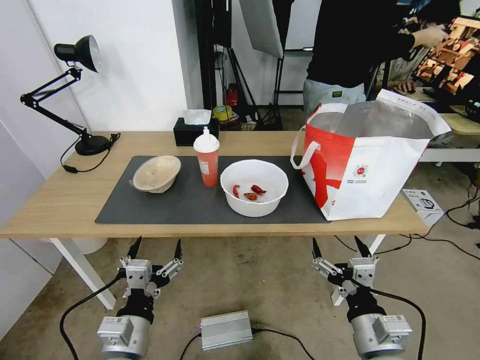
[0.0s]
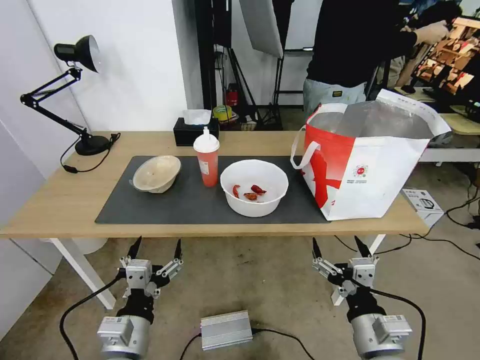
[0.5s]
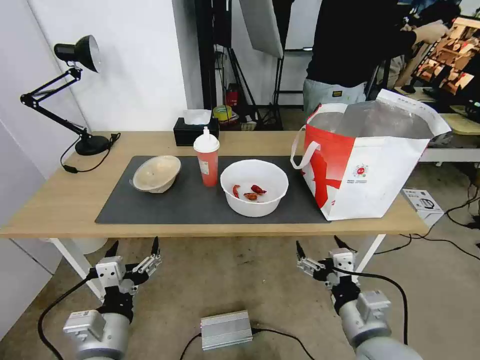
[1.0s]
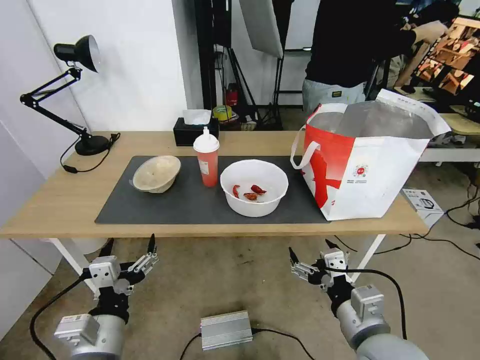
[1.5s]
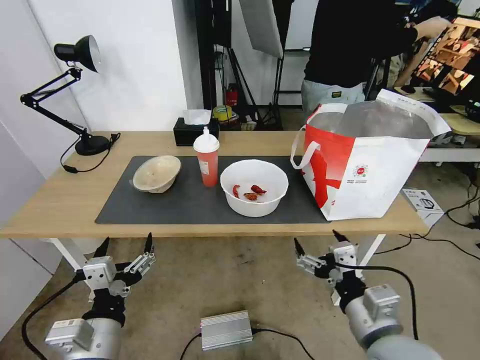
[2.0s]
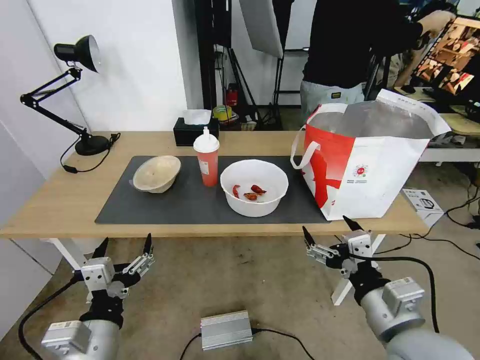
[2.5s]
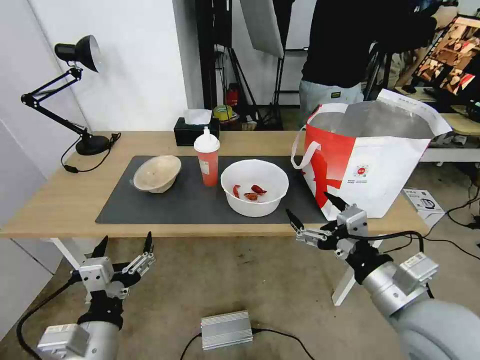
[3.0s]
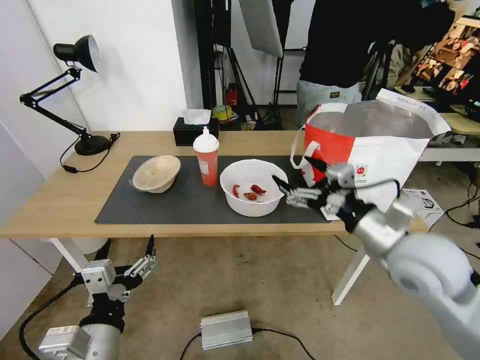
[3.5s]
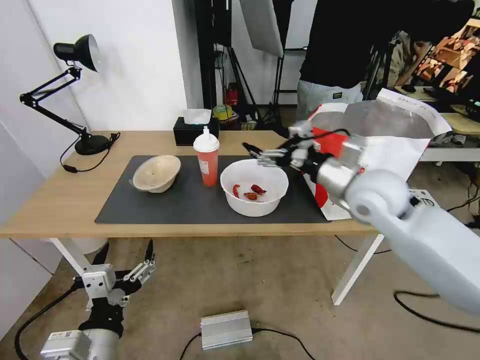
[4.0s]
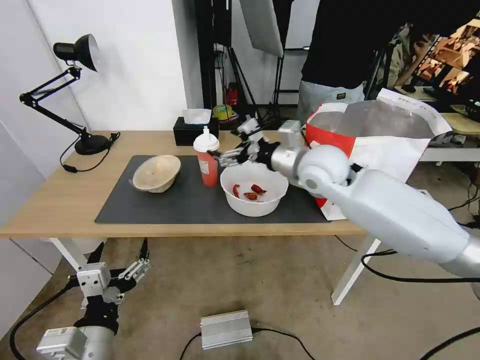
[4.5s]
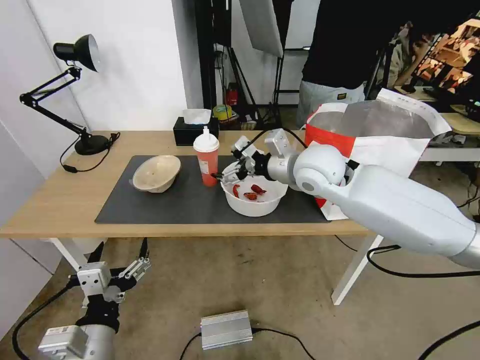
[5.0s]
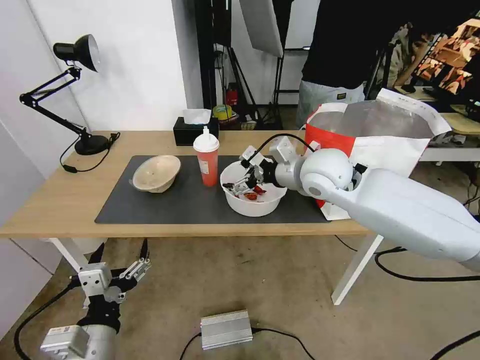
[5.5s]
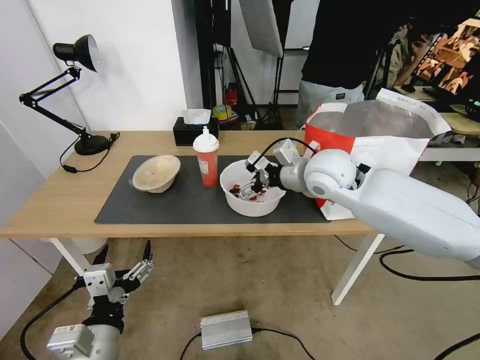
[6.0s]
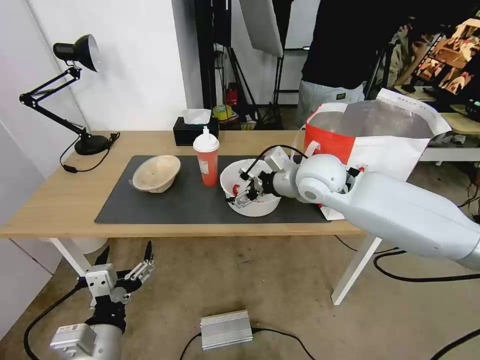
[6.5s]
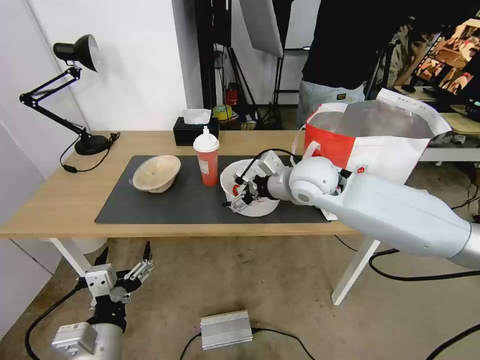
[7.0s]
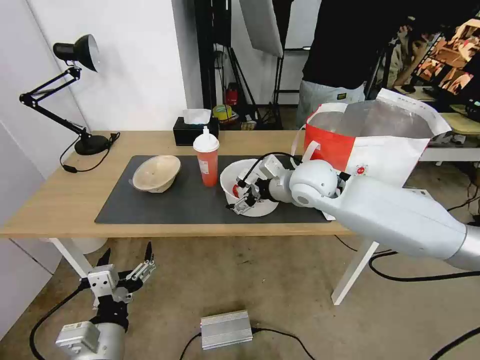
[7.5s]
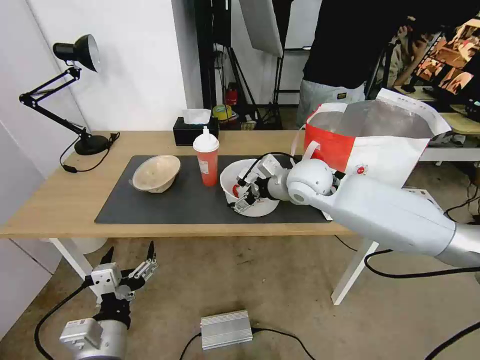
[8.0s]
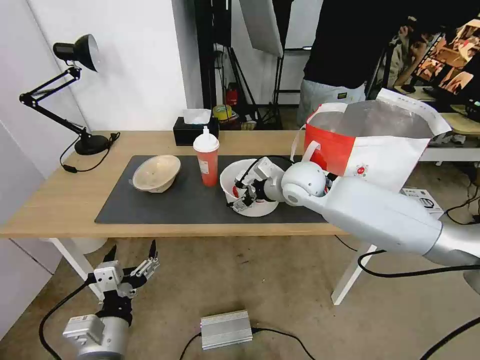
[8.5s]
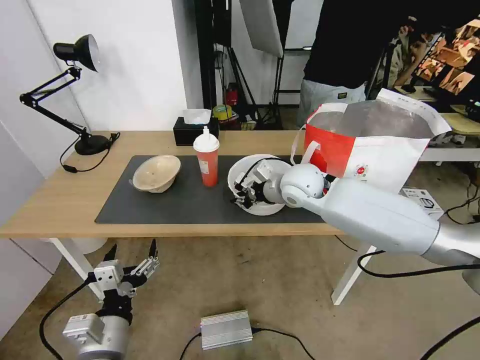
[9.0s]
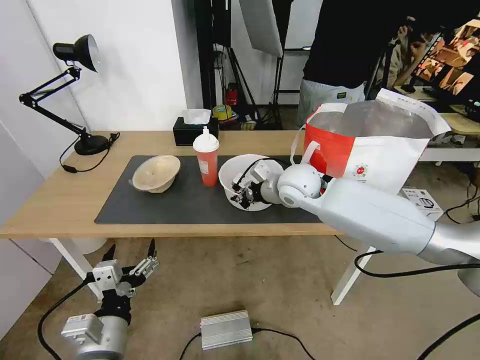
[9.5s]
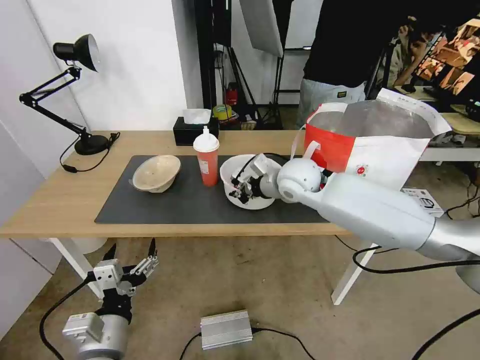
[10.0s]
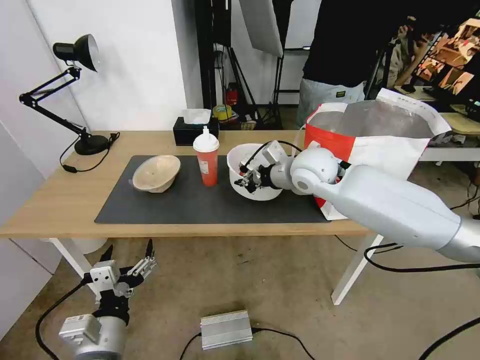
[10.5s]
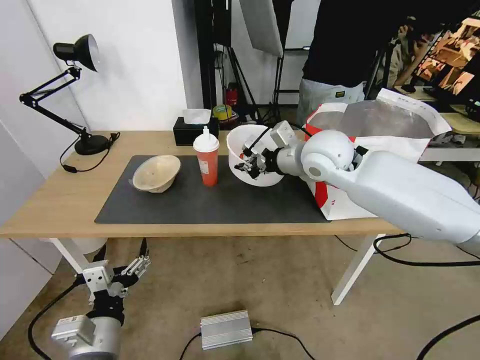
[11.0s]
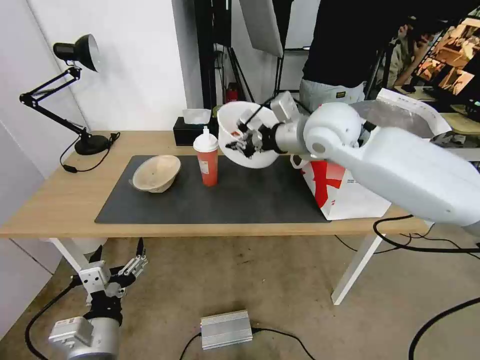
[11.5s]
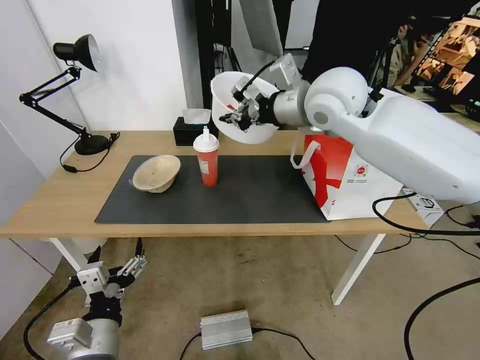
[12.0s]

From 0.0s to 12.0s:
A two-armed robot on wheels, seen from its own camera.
Task of the whole recording: Pick up the trash from the table and place it into the takeout bag.
From 2.0s to 4.0s: The right gripper travels forward and upward by roughly 25 cm.
From 4.0s to 6.0s: The right gripper travels to the left and forward by roughly 10 cm.
From 6.0s to 8.0s: The right gripper ends up about 5 cm from where it was.
From 8.0s to 10.0s: The right gripper closes.
From 10.0s to 12.0s: The right gripper shifts approximately 20 cm upward.

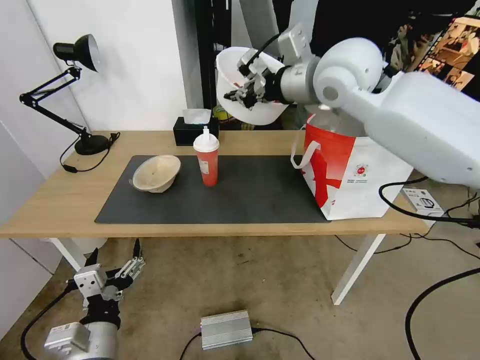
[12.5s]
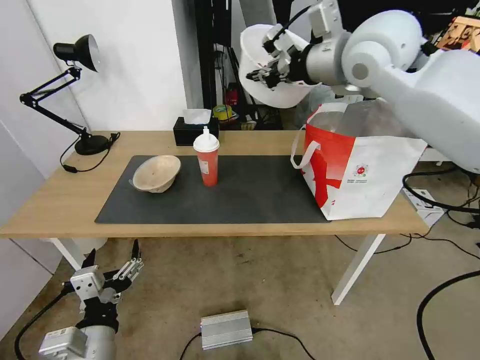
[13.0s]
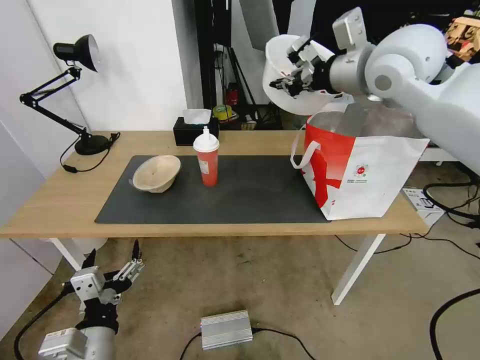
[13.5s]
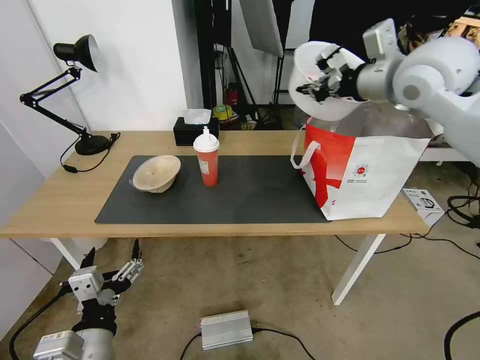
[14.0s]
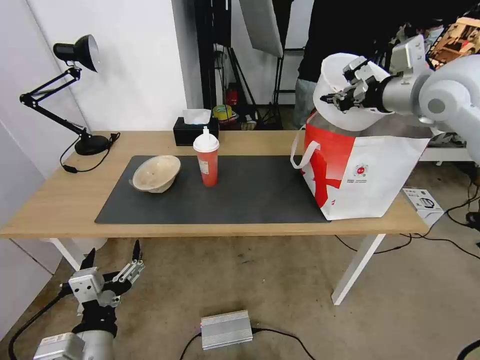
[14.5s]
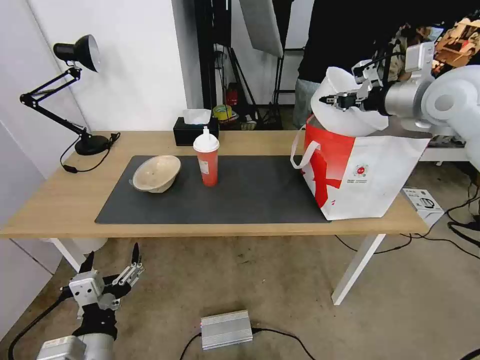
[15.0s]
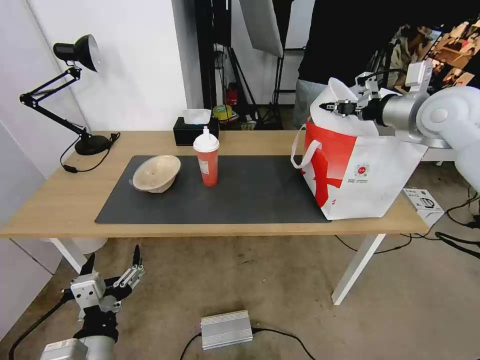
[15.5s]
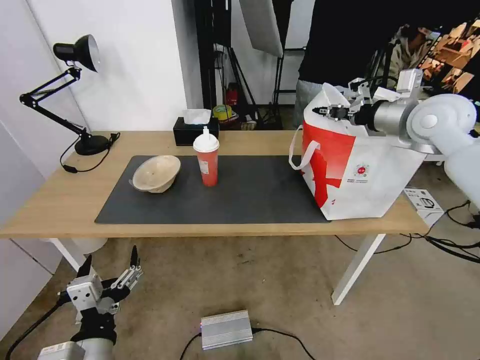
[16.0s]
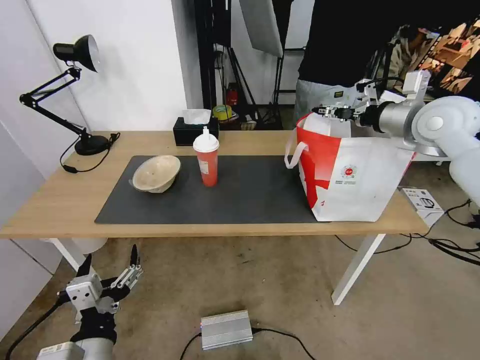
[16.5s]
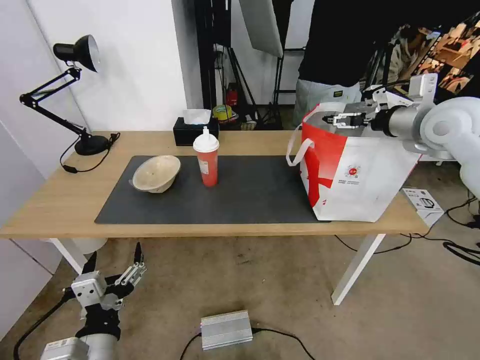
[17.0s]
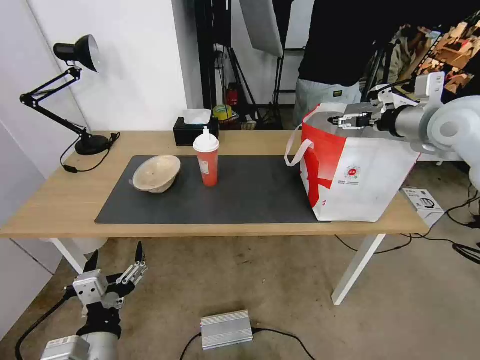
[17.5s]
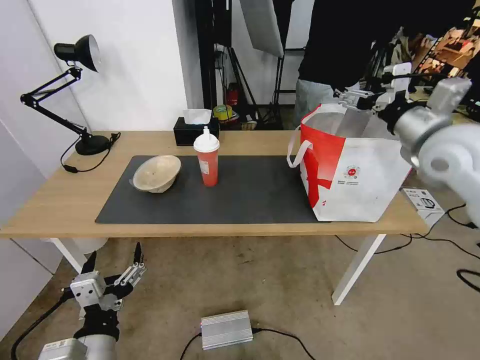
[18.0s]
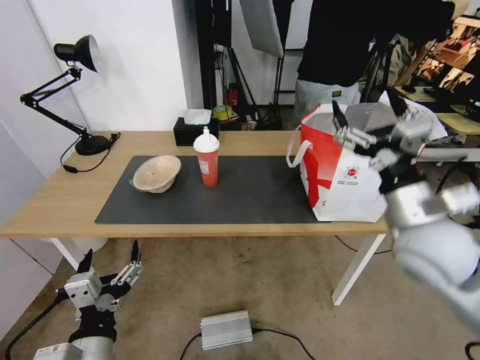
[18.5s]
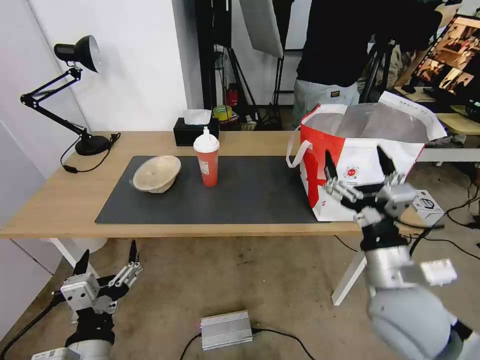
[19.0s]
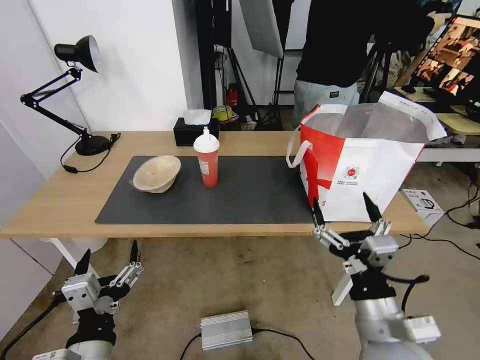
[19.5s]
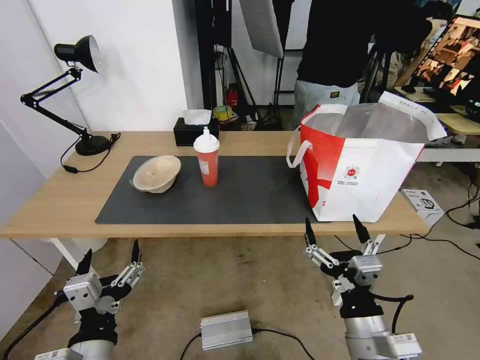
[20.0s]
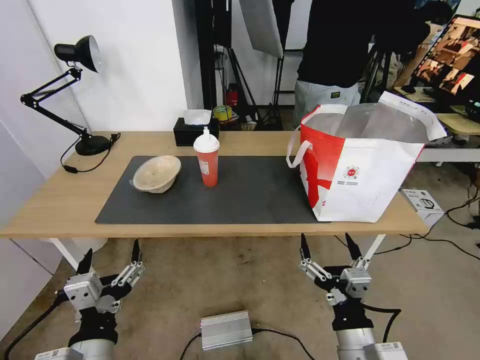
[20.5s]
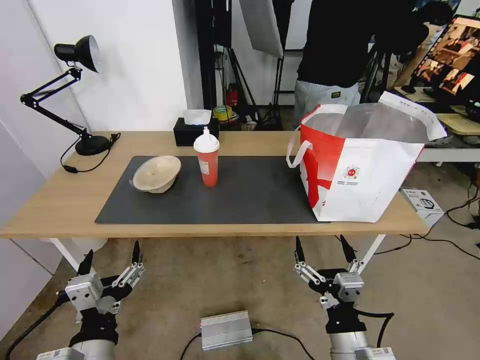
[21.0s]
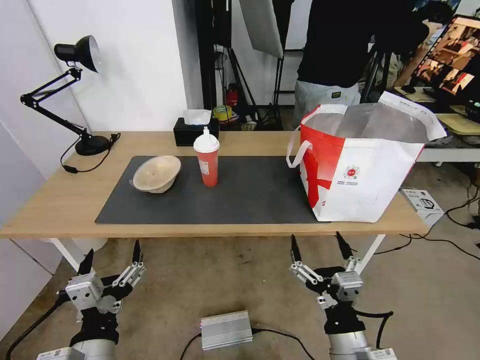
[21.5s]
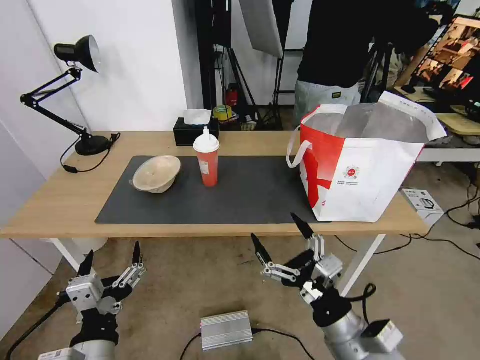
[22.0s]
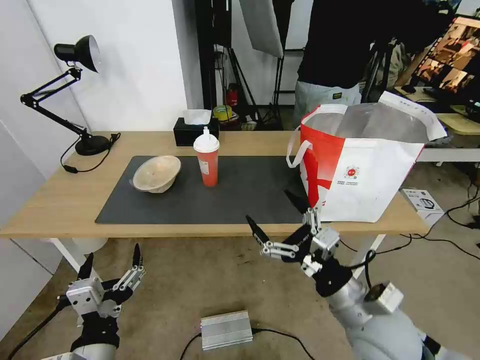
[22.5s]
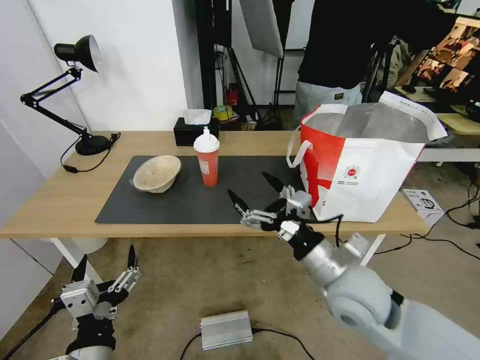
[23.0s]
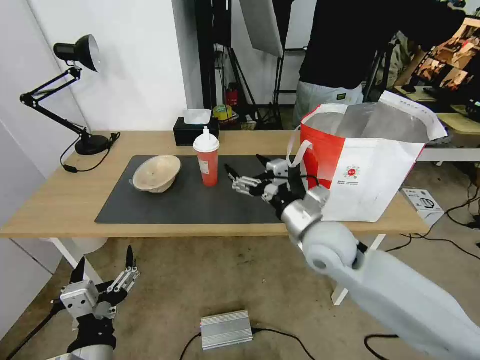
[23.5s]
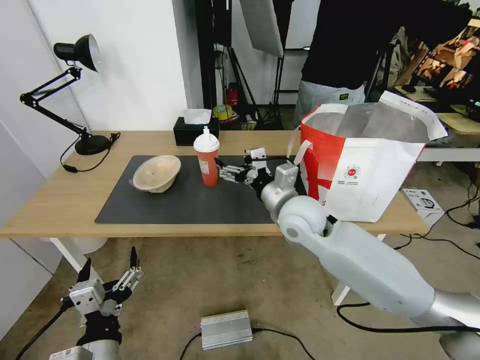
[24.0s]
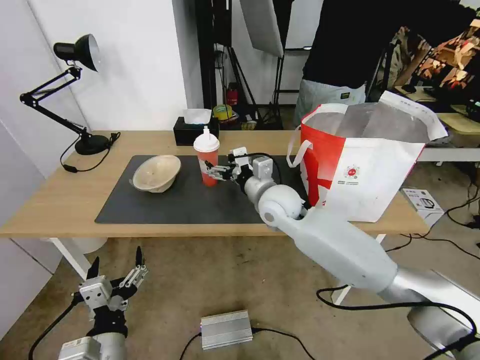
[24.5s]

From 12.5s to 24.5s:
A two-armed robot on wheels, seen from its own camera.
Task of the whole recording: Pick up the trash from the table and place it into the takeout bag.
From 12.5s to 14.5s: The right gripper travels to the right by some 20 cm.
From 14.5s to 16.5s: The right gripper is displaced downward by some 5 cm, and opens up.
From 16.5s to 18.5s: The right gripper is displaced backward, downward and to the left by about 25 cm, and opens its fingers.
From 18.5s to 20.5s: The right gripper goes approximately 25 cm backward, downward and to the left.
From 20.5s to 22.5s: The right gripper moves forward and upward, some 10 cm.
From 22.5s to 24.5s: The right gripper heads forward and to the left, covering about 30 cm.

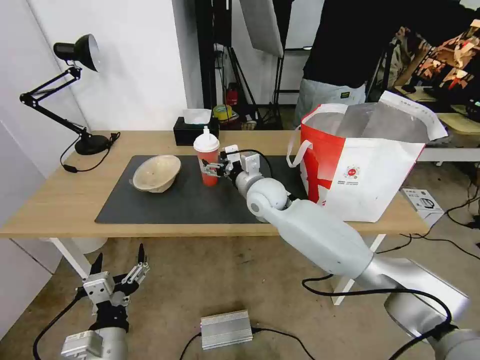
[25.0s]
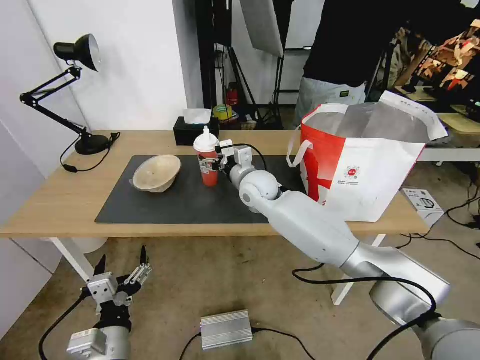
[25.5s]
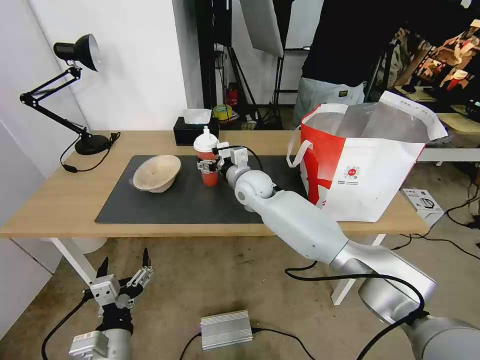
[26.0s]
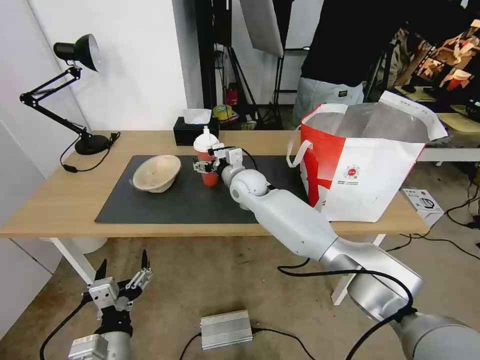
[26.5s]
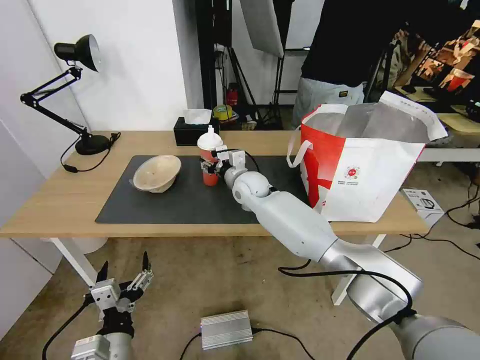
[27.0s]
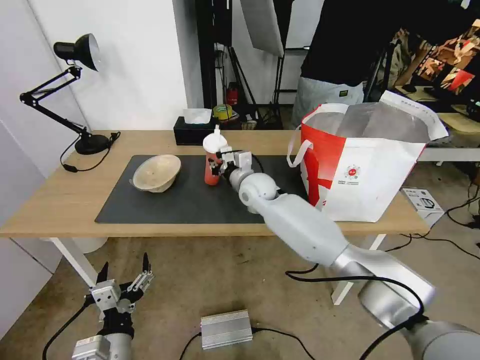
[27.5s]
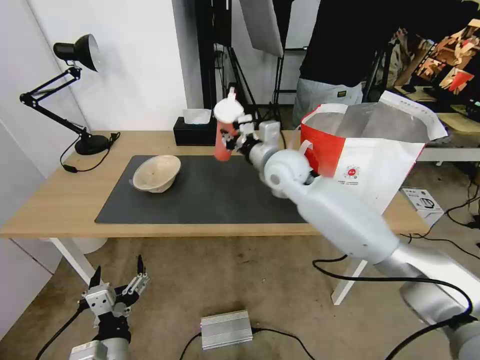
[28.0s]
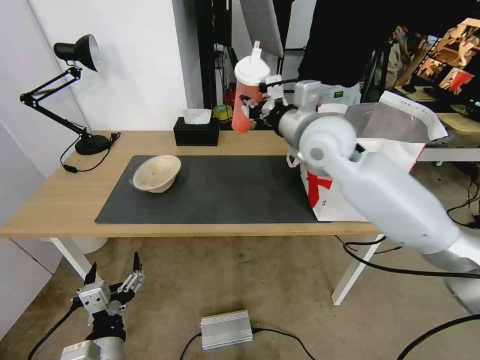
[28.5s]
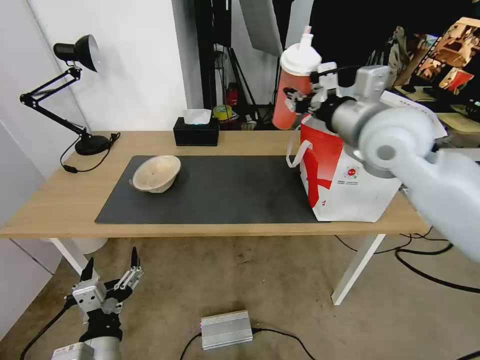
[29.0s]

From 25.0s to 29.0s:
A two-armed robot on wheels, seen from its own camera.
Task of the whole recording: Pick up the trash from the table and place it into the takeout bag.
From 25.0s to 27.0s: The right gripper travels forward by roughly 5 cm, and closes up.
From 27.0s to 29.0s: The right gripper heads upward, to the right and backward, covering approximately 35 cm, and closes its fingers.
